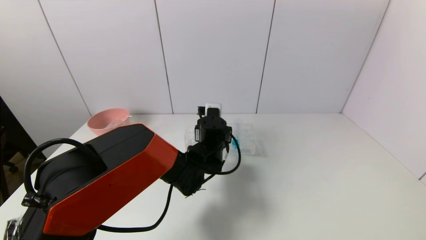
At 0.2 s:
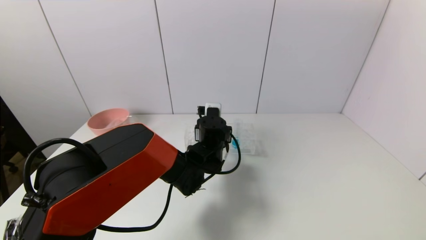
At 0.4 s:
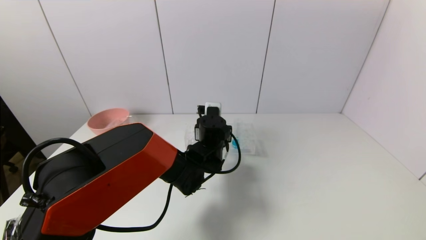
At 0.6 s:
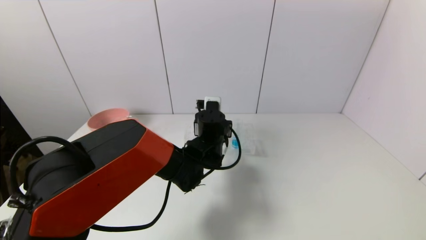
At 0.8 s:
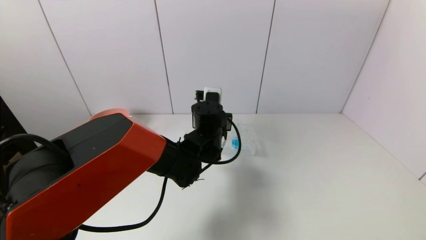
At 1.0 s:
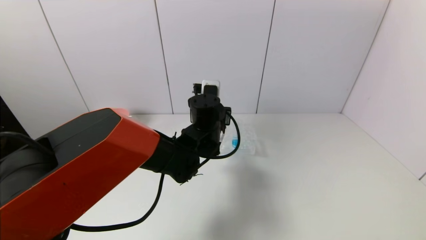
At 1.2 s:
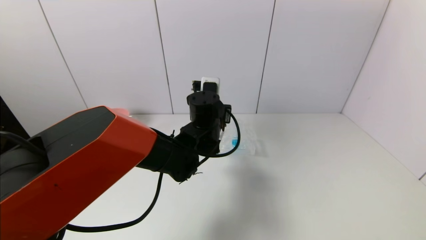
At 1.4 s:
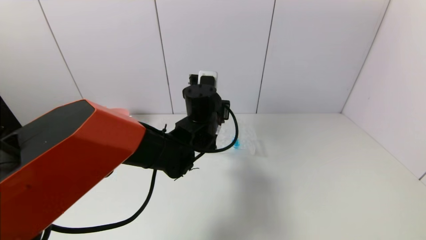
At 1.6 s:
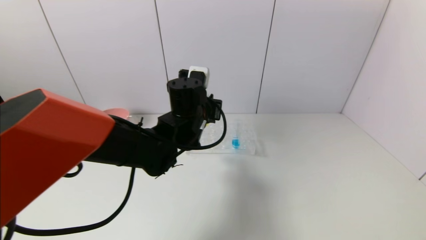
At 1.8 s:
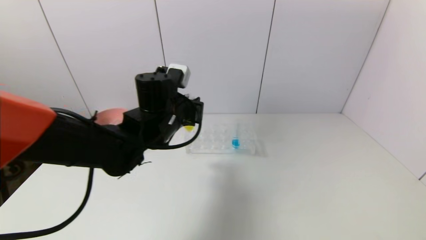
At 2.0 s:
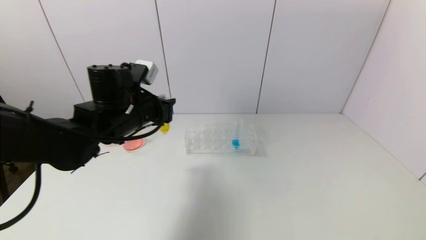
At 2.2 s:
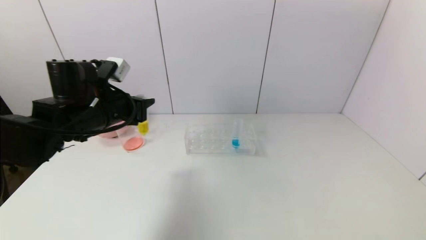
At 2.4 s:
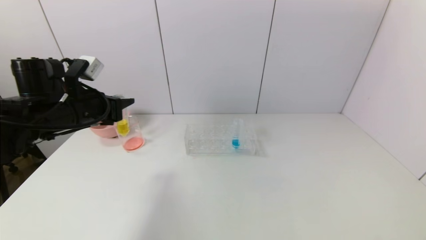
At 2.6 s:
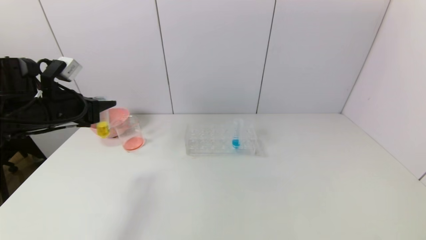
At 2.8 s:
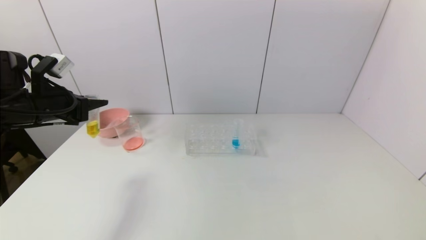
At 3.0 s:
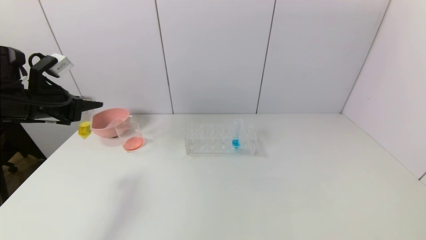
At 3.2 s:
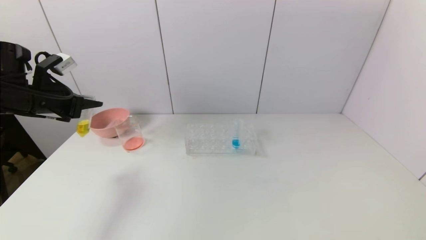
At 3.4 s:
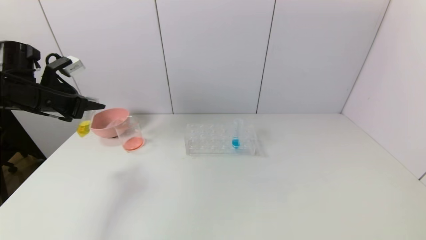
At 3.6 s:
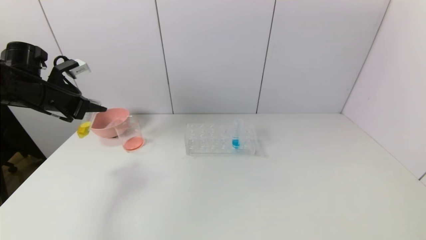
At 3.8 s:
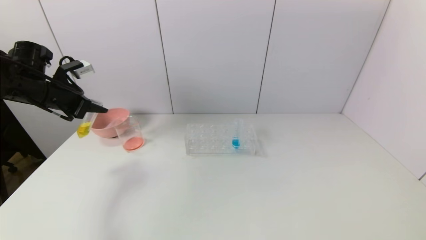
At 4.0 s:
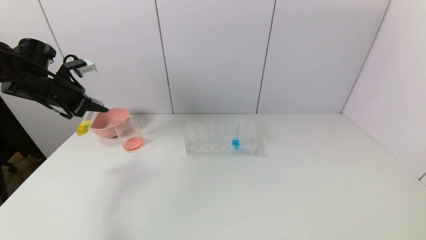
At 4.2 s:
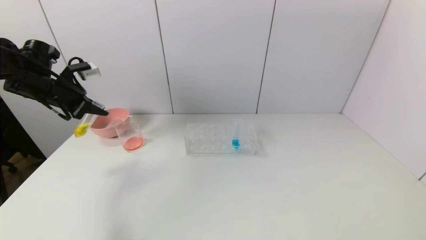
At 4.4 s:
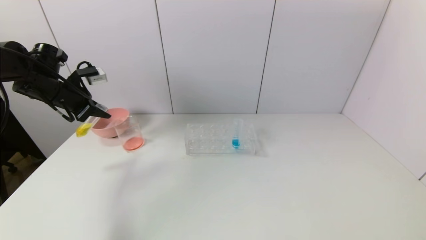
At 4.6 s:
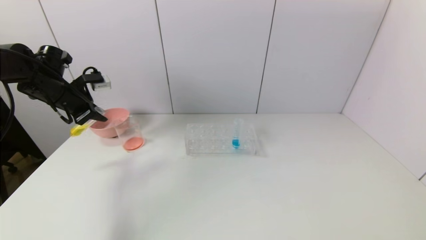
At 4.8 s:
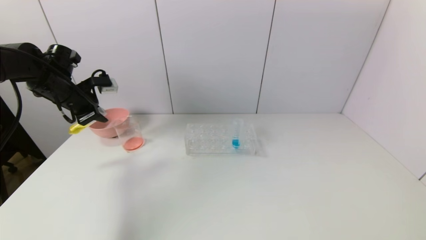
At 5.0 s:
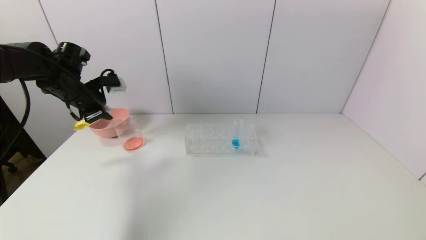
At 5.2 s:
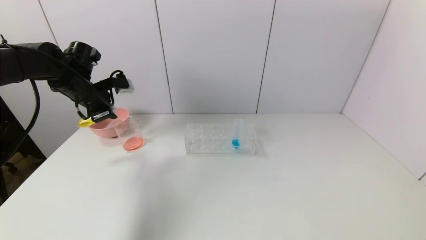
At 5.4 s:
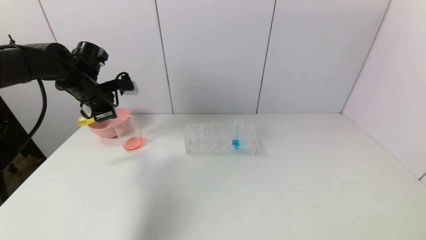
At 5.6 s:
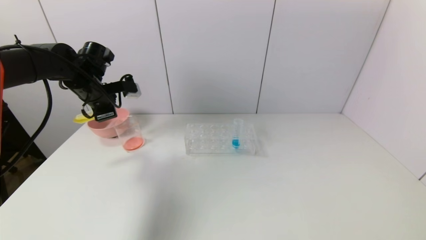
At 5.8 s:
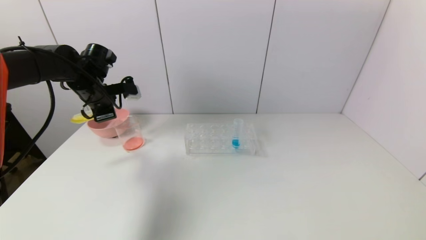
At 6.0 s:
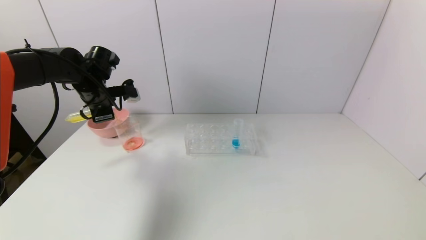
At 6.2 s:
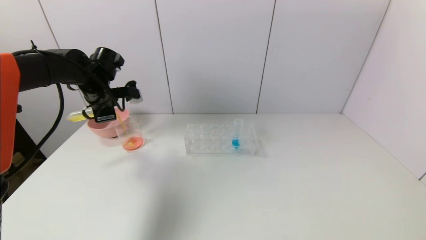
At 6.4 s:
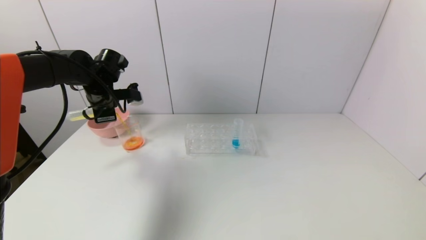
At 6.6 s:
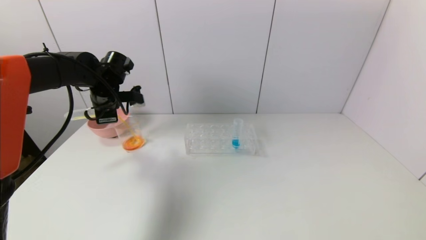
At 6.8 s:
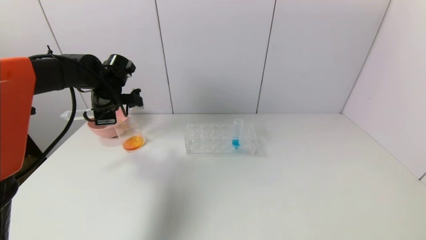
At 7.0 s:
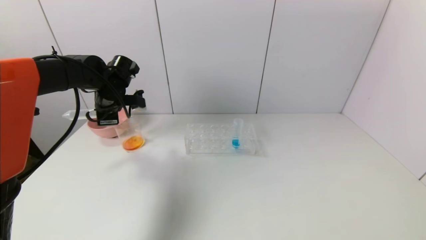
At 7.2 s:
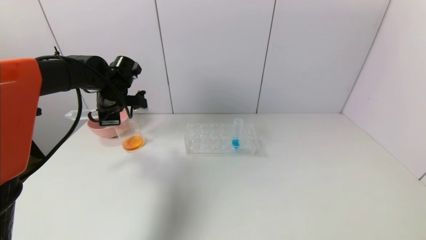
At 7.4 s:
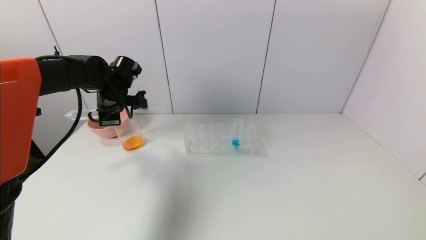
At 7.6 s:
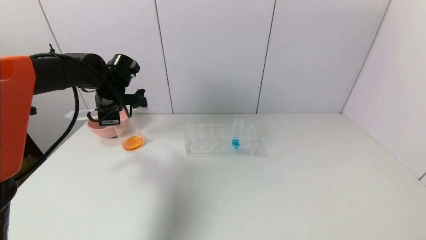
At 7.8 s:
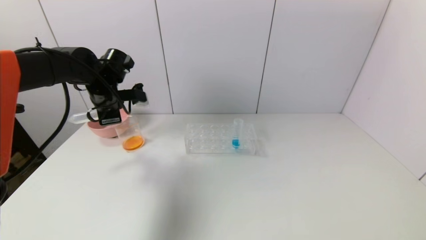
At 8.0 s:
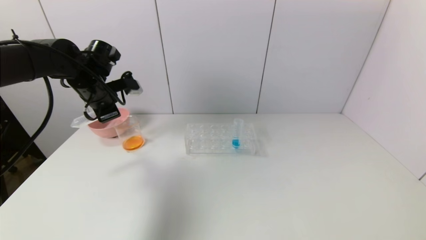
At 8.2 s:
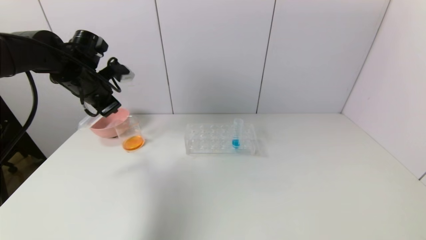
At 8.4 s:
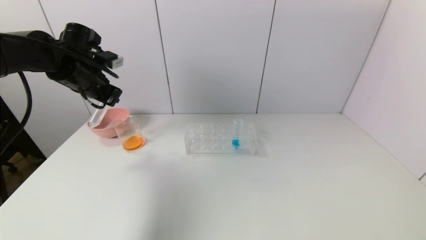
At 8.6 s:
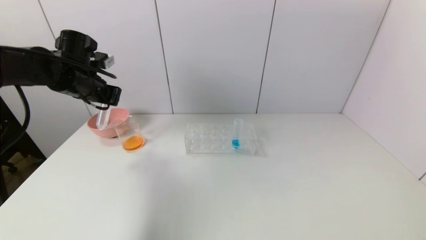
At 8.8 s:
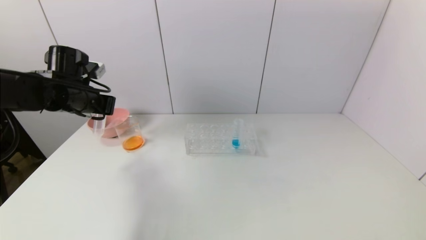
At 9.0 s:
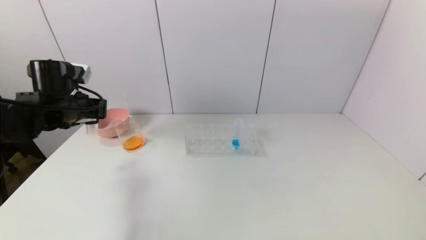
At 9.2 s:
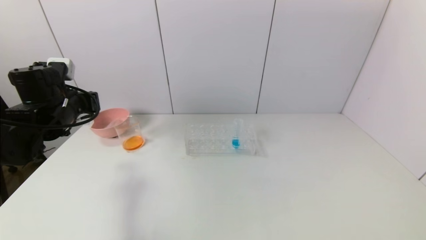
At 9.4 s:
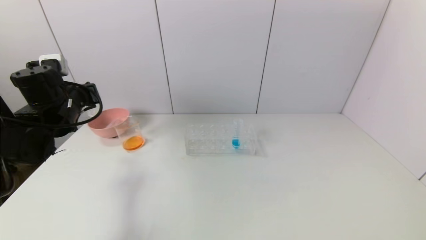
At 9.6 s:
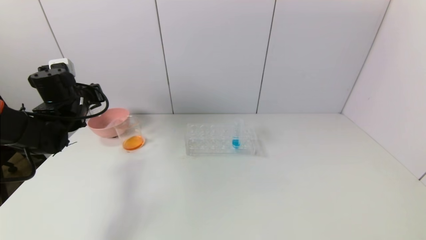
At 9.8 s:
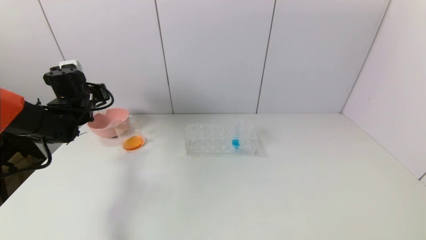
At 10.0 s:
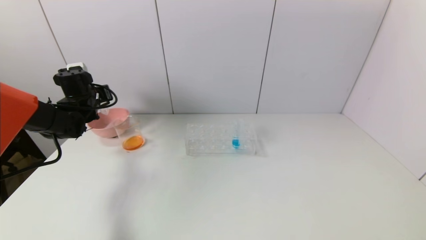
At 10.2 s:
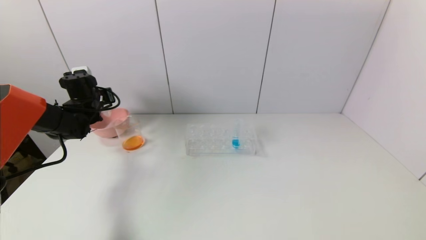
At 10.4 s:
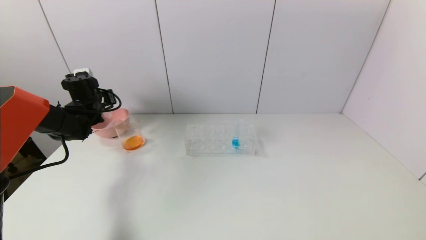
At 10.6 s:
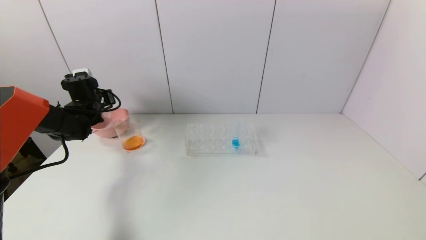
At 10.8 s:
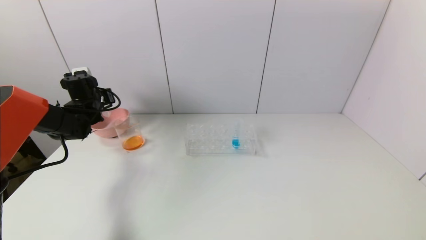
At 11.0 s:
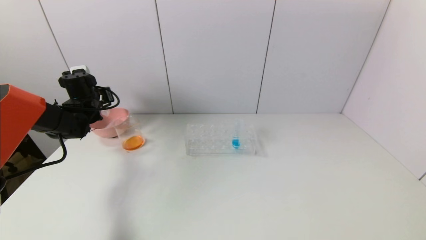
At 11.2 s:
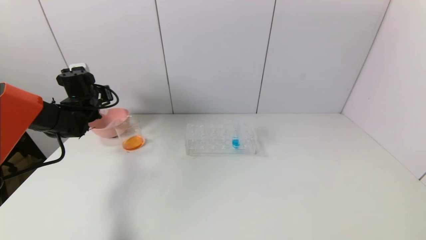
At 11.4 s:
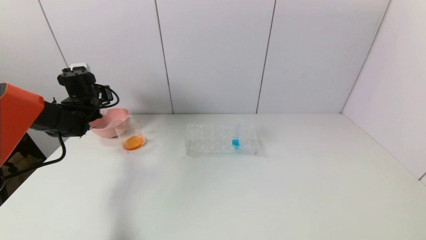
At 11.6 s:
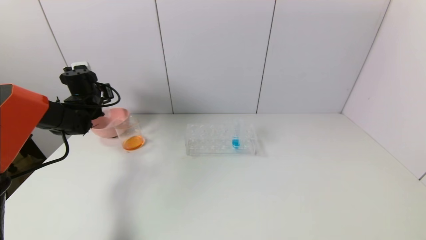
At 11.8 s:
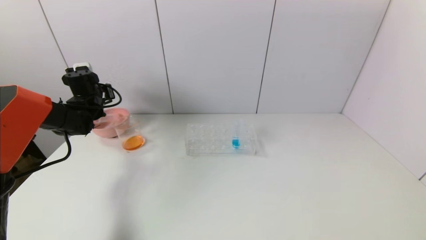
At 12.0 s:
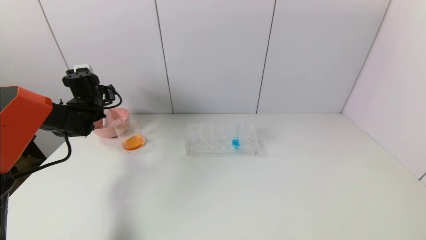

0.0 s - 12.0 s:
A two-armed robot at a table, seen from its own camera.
Task of the whole recording: pick up the test tube with yellow pigment and the test tube with red pigment by grippers and pour them into the beaker.
Step, 0.4 s - 7.4 s: Pour the yellow reagent into the graduated cylinder with the left gripper.
Step, 7.6 s - 12.0 s: Place the test tube into the pink bowl with the left gripper.
0.0 s - 1.6 s: The left gripper travels upward by roughly 10 cm.
1.6 s - 3.0 s: The left gripper is displaced to the left by approximately 30 cm.
3.0 s - 4.4 s: The left gripper travels forward by approximately 10 cm.
4.4 s - 6.0 s: The left gripper travels to the right by roughly 10 cm.
6.0 s - 7.6 s: The grippers make only small movements.
7.6 s - 9.0 s: The left gripper goes approximately 10 cm backward and to the left.
9.0 s - 10.4 s: The left gripper is displaced forward and downward by about 15 cm.
10.4 s - 12.0 s: The left gripper opens up.

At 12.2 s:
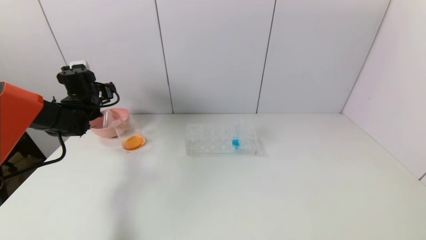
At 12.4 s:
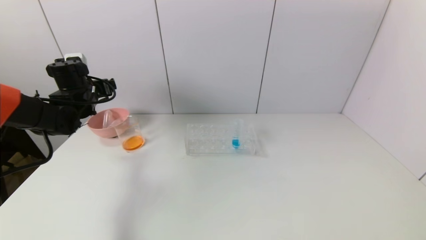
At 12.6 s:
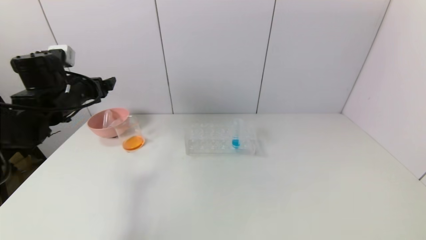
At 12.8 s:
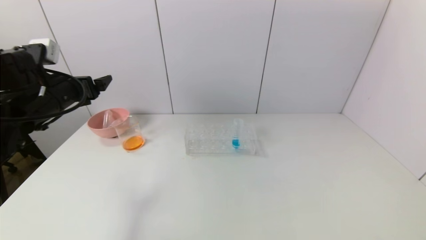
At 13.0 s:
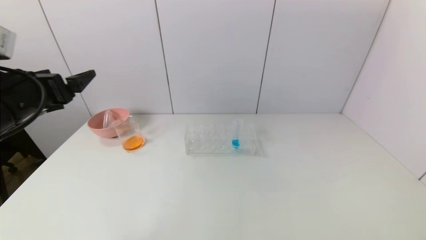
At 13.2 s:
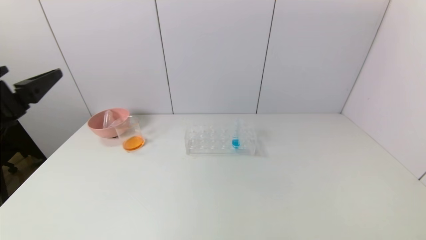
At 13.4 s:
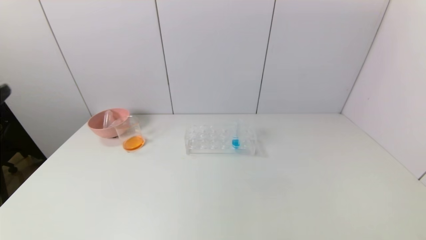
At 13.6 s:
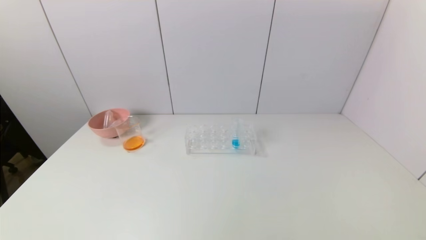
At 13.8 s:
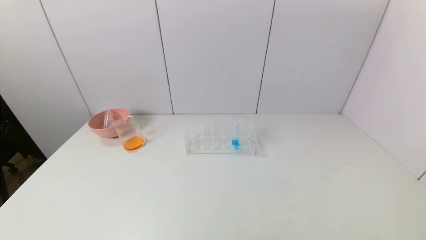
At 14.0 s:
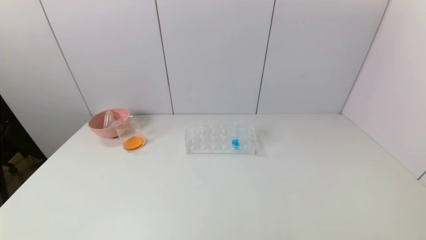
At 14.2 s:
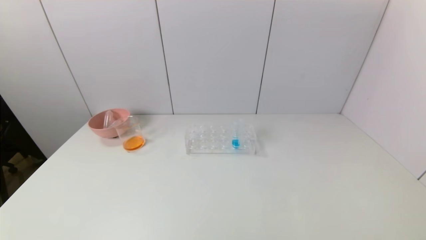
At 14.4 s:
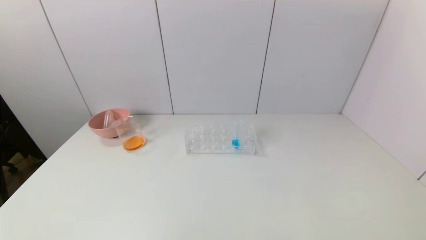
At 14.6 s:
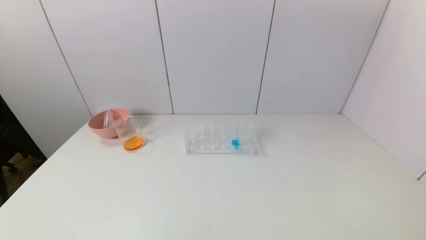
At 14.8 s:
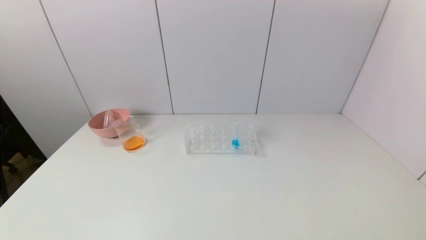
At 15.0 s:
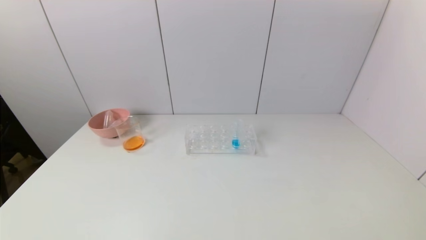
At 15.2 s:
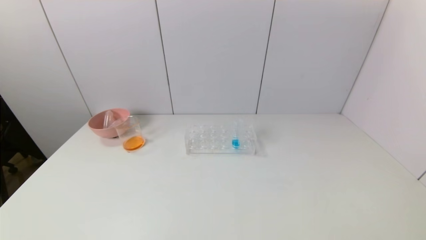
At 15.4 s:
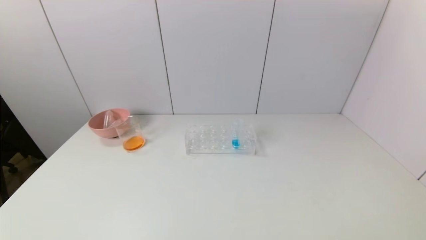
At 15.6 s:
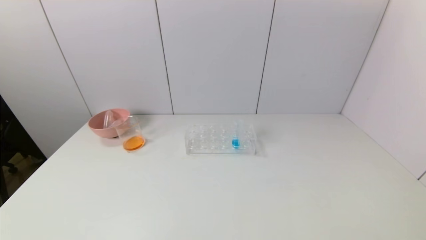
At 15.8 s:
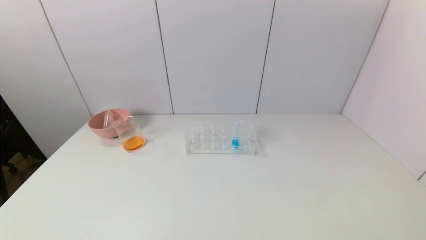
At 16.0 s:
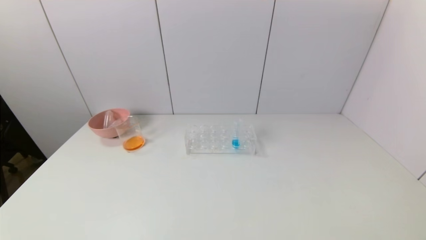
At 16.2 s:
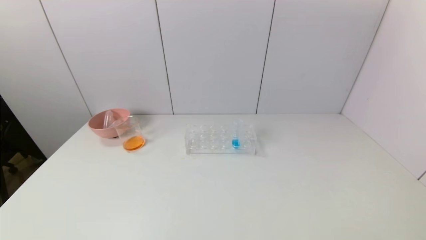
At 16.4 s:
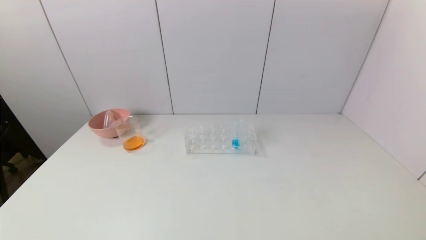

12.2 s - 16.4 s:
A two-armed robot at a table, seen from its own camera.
Task of the whole recording: pick up the test tube with yellow pigment and the test tube with red pigment by grippers and pour them into the beaker.
12.2 s - 13.6 s: The left gripper travels backward by some 40 cm.
15.0 s - 16.4 s: Both grippers stay about where they are.
